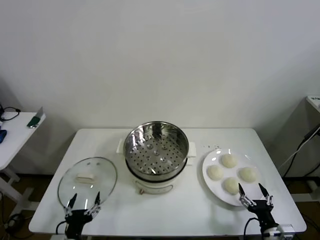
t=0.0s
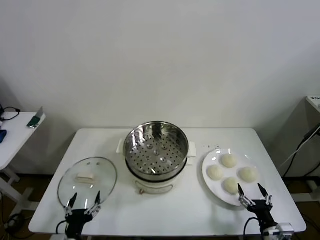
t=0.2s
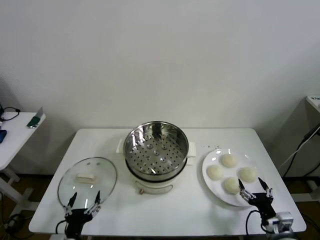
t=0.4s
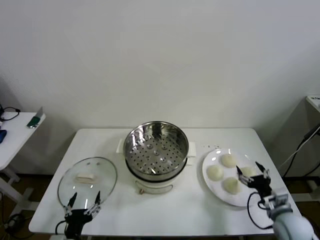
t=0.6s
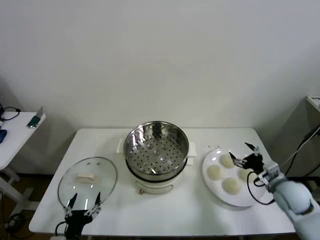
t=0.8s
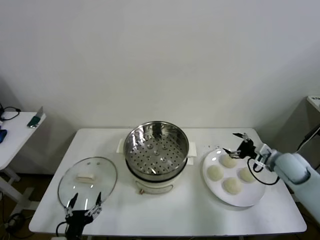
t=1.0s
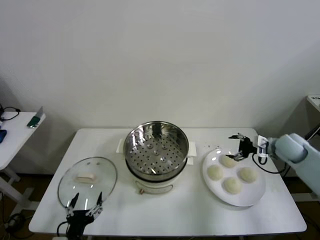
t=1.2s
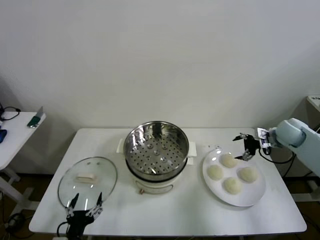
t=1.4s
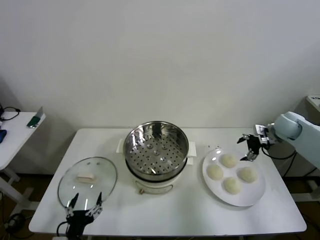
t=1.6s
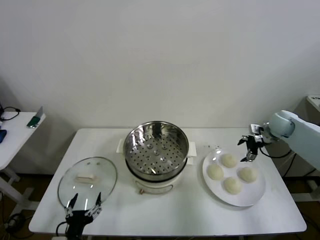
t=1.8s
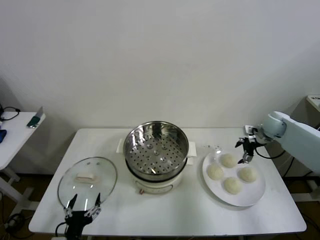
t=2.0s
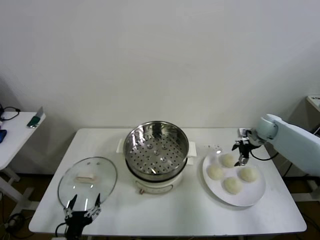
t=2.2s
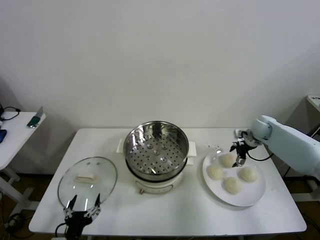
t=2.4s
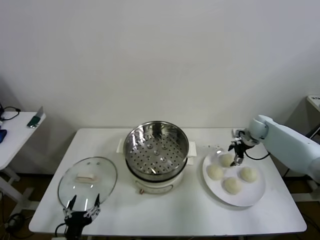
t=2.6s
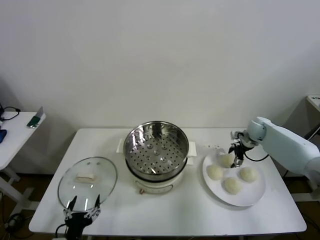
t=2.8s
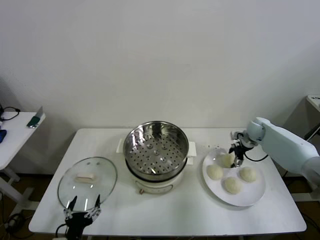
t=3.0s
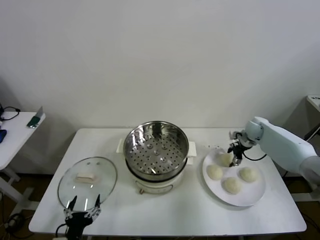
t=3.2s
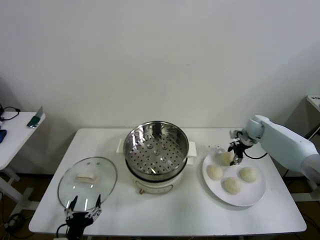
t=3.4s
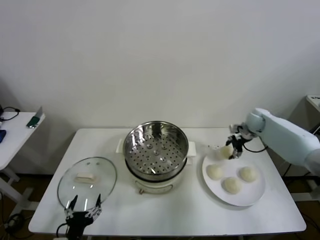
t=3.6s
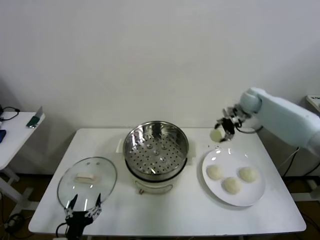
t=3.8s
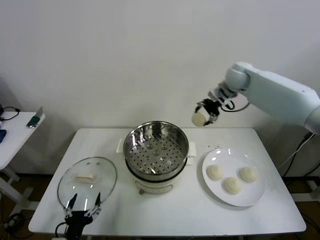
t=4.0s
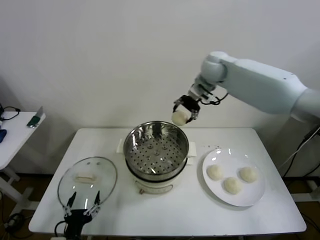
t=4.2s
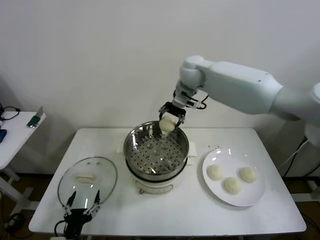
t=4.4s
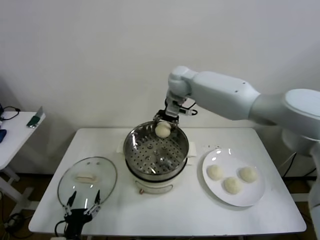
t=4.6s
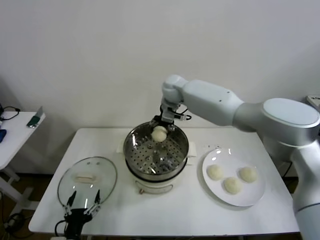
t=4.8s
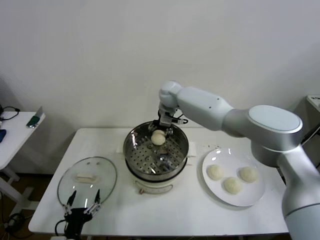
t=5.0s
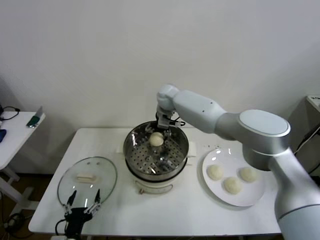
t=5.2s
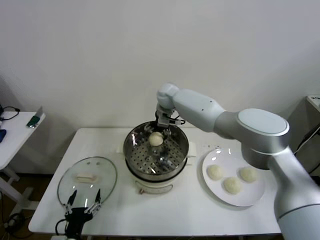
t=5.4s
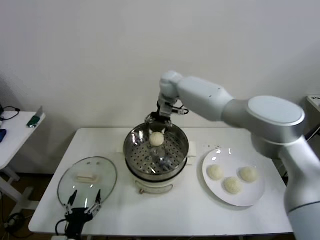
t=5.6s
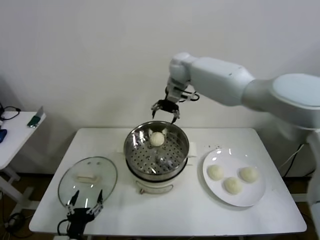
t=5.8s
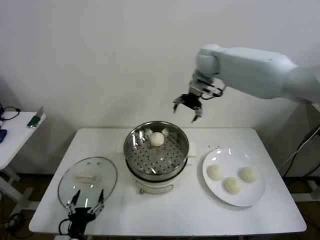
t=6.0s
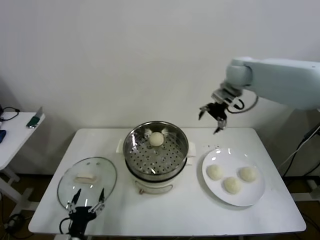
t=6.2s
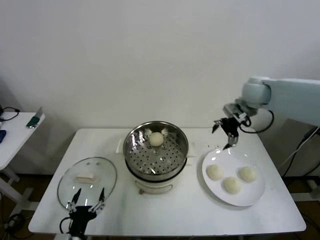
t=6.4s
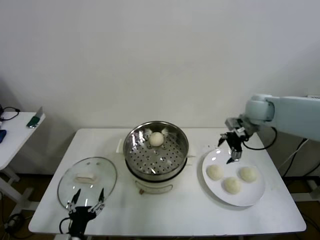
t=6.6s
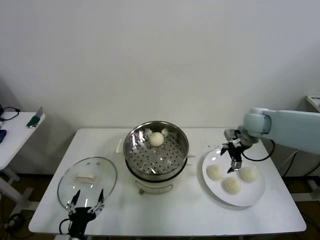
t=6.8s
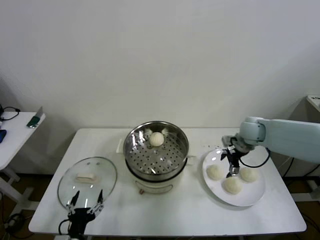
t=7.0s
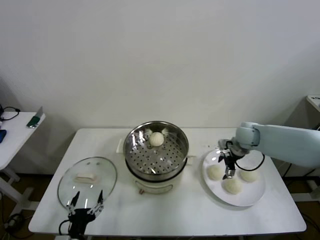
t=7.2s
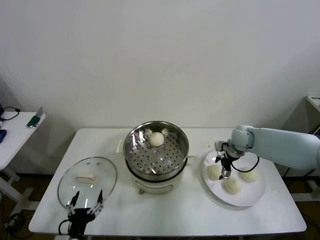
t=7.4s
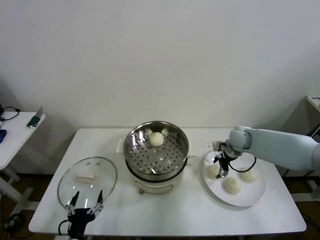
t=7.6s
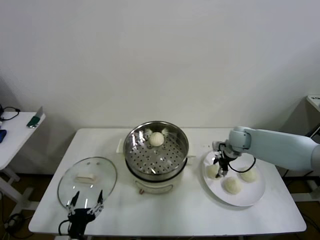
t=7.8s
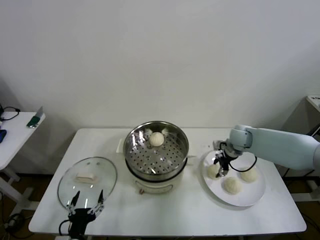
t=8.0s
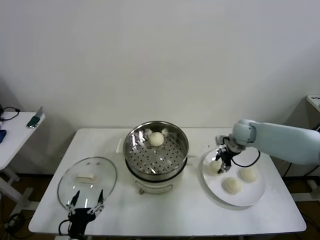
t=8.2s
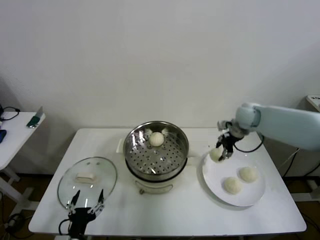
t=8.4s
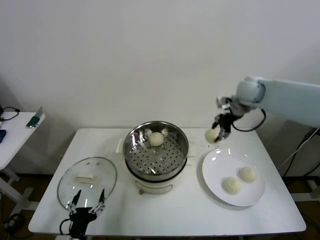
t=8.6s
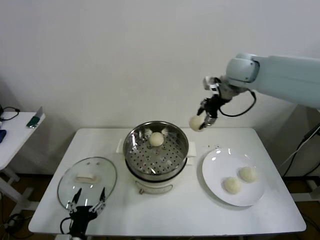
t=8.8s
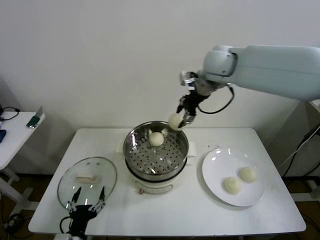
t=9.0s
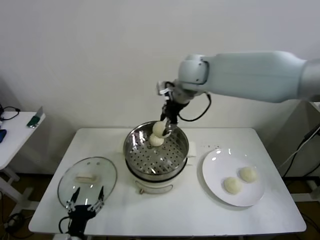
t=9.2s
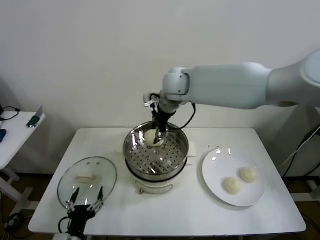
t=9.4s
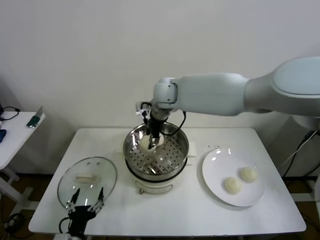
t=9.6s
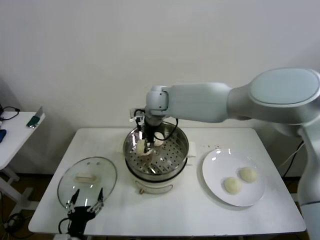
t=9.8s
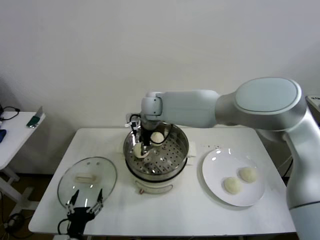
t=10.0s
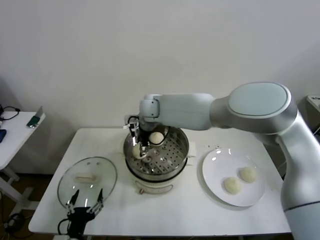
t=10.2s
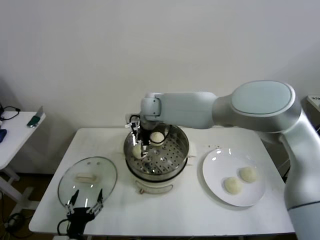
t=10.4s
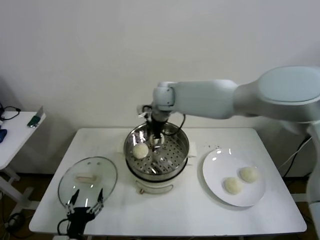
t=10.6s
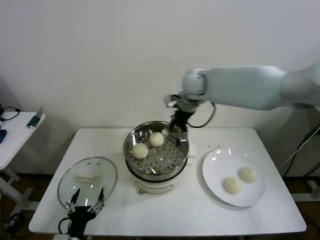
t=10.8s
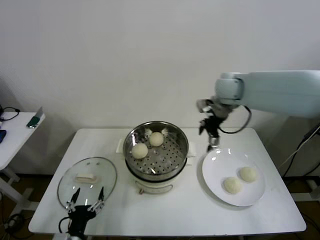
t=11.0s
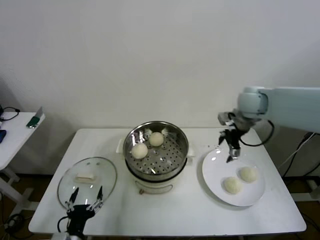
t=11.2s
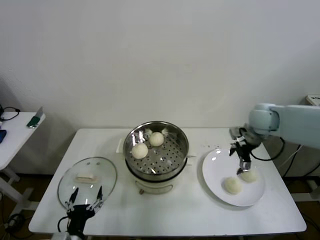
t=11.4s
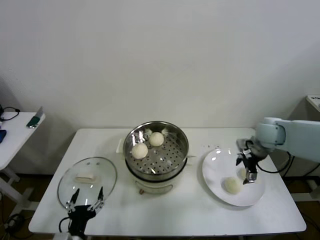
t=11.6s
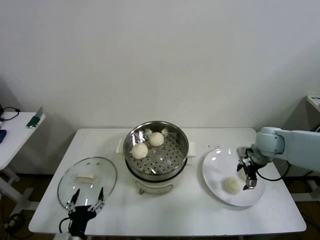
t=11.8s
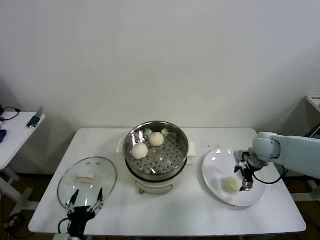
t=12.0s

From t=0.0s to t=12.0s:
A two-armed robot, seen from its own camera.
Step, from t=0.0s to t=3.2s: Grasp the baozi in the plate with right gripper.
Step, from t=3.4s to t=5.0s: Place the baozi on the steamer with right gripper.
Step, from t=5.4s to t=7.8s: Grasp the baozi in the plate with right gripper.
Step, from t=8.0s to t=10.0s: Place the baozi on the steamer with right gripper.
From t=1.6s to t=3.0s: The right gripper is displaced downward and forward by about 10 cm.
From t=3.0s to t=4.4s: The right gripper travels to the left and upward by approximately 40 cm.
From t=4.4s to t=6.0s: The right gripper heads to the right, covering some 15 cm, and opens its fingers.
From t=6.0s to t=7.6s: The right gripper heads downward, covering approximately 25 cm, and closes up.
From t=7.6s to t=9.0s: The right gripper shifts approximately 35 cm upward and to the left, and closes up.
From t=9.0s to t=10.4s: The right gripper shifts about 20 cm to the left and downward, and opens.
From t=10.4s to t=12.0s: The right gripper shifts approximately 40 cm to the right.

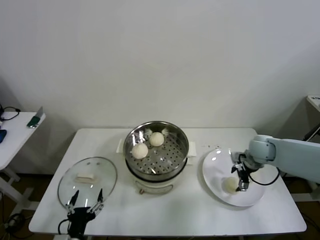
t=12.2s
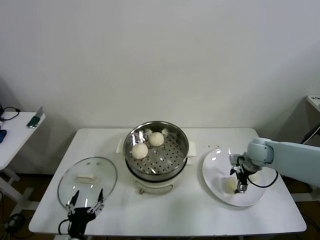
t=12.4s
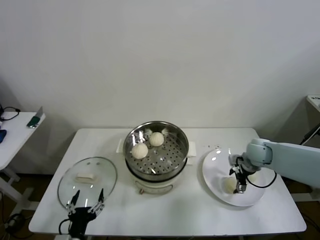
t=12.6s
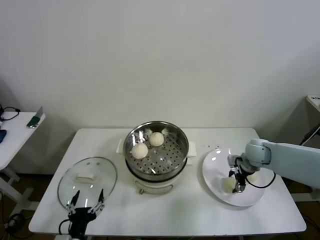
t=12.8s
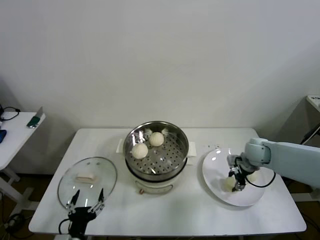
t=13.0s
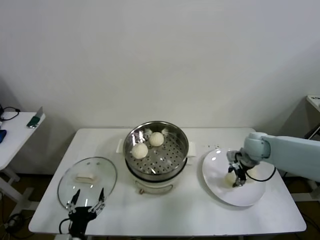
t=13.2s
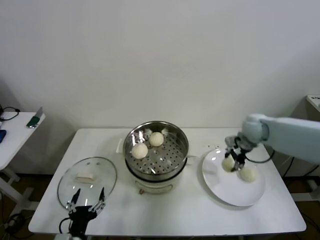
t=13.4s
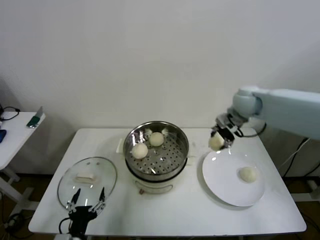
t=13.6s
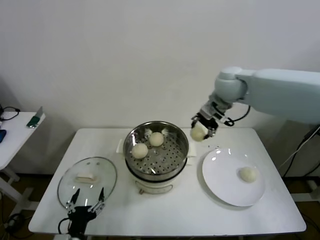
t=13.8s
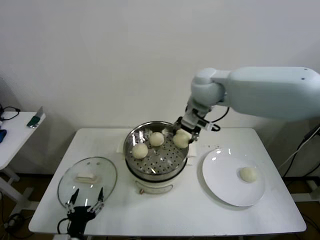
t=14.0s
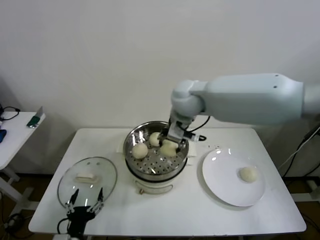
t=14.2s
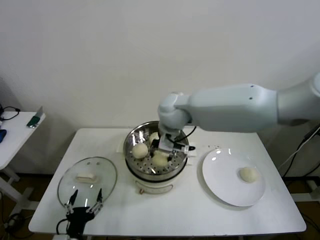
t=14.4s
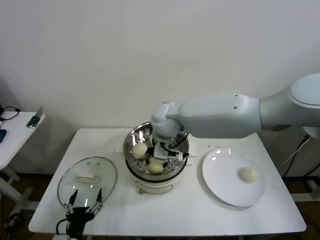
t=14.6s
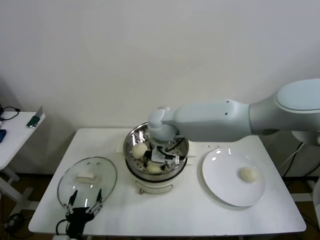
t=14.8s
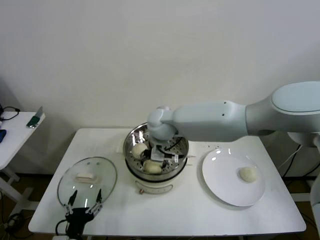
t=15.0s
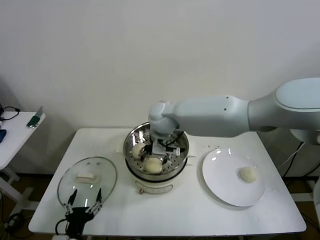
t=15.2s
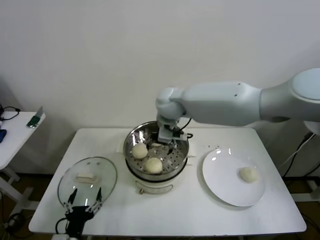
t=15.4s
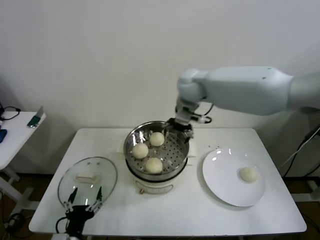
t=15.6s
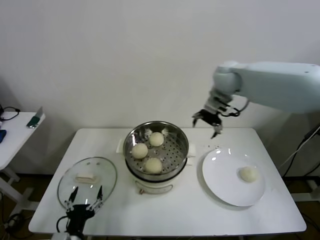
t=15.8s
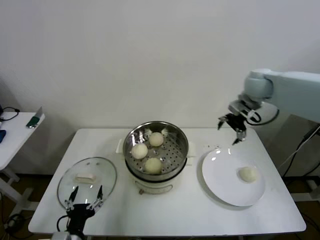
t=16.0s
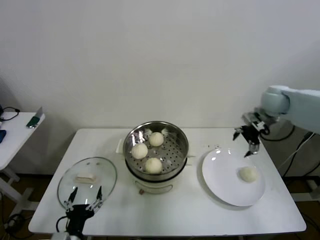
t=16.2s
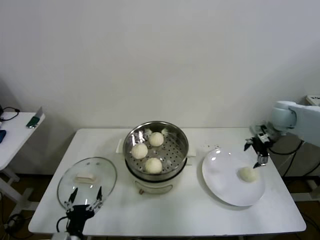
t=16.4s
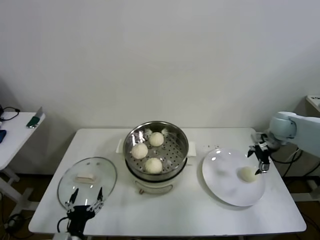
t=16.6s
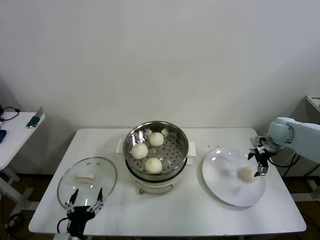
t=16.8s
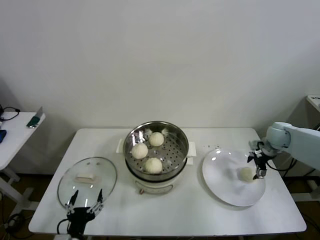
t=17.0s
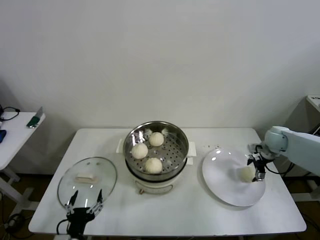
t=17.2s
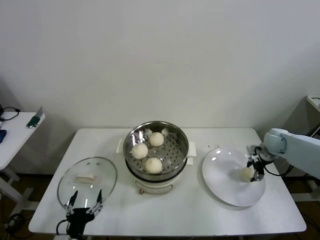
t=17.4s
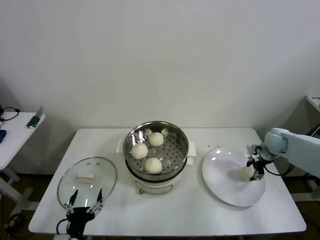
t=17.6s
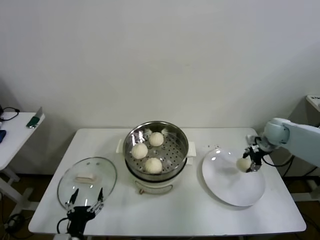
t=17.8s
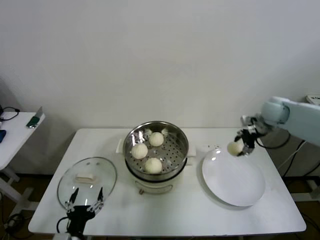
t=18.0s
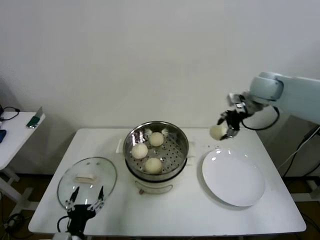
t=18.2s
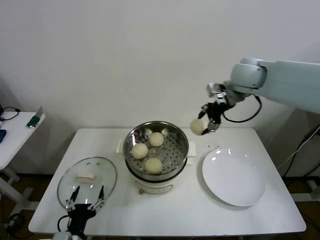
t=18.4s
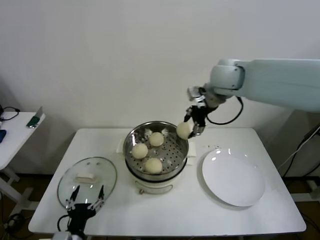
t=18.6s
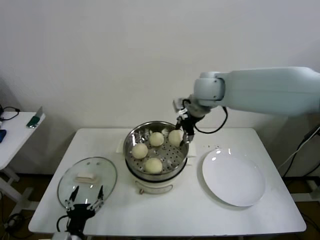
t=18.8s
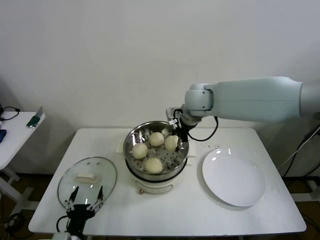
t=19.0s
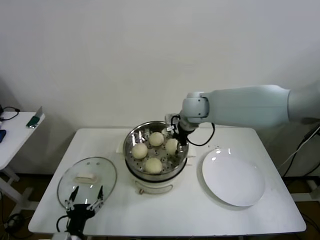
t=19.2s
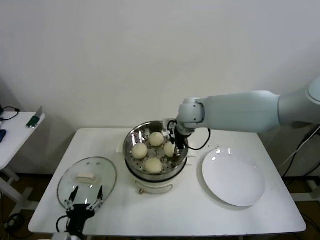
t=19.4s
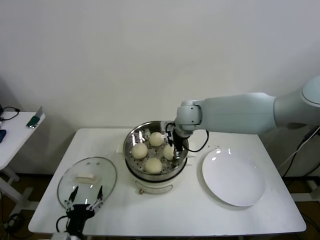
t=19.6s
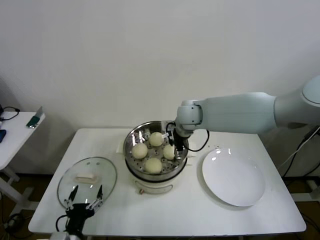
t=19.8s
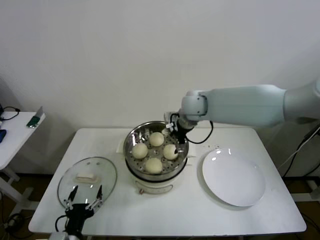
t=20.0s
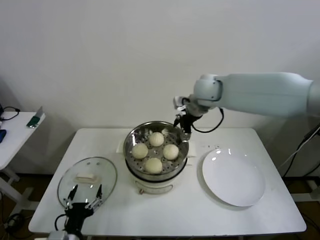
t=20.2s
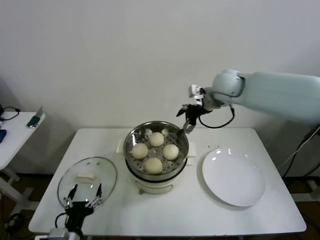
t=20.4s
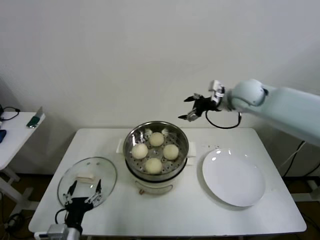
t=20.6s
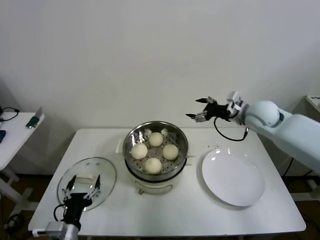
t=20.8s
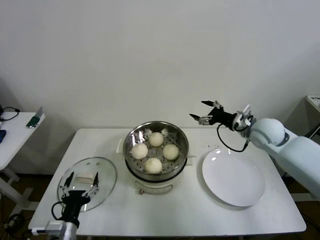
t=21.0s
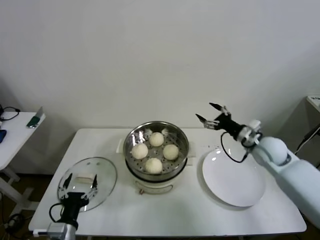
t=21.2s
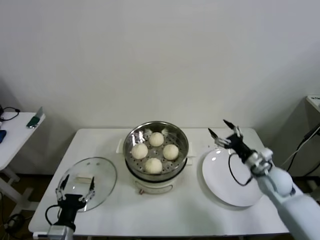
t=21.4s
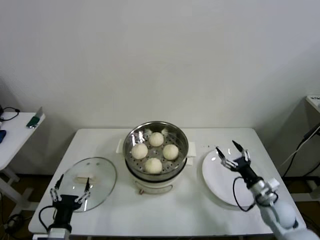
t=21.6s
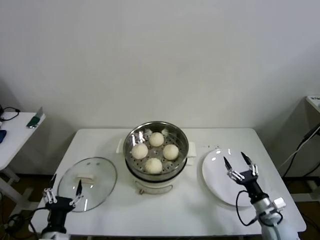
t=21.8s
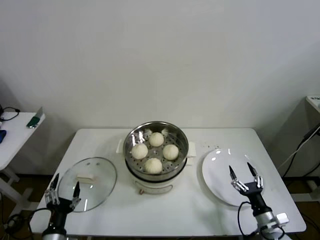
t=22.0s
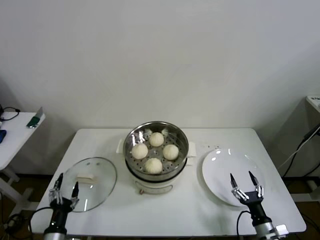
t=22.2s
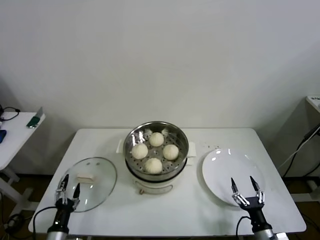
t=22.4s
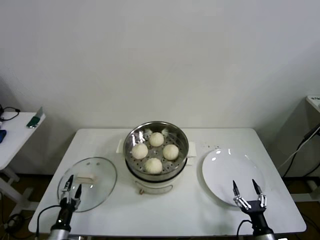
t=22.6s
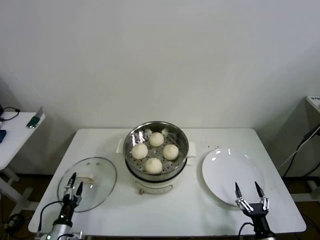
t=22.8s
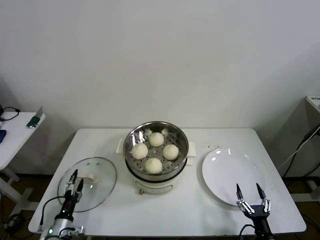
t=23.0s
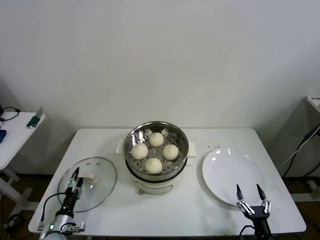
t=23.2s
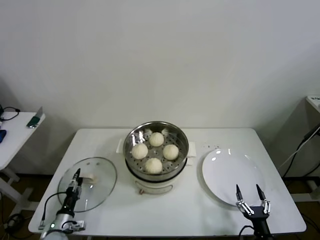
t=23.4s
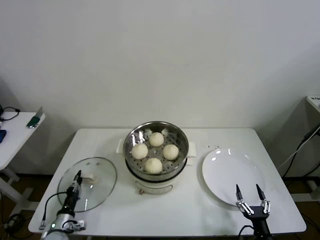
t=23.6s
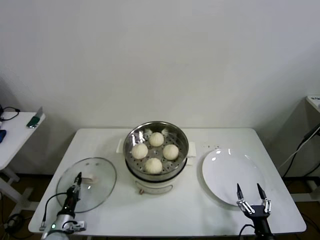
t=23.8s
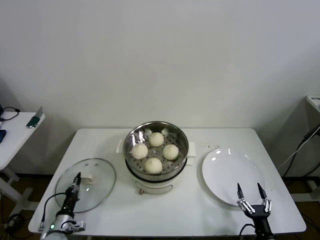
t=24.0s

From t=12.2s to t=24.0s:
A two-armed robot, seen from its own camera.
Step, from t=13.0s to t=14.8s: Place the baozi on the steamer with right gripper.
Step, from t=15.0s to t=17.4s: Grasp the baozi in the plate with right gripper.
Step, from t=17.6s to t=19.6s: Place the baozi on the steamer with right gripper.
Step, from t=19.8s to t=23.6s: Grasp the pot lid with left gripper.
From t=12.2s to t=13.6s: The right gripper is displaced upward and to the left by about 20 cm, and closes its fingers.
From t=13.6s to t=15.2s: The right gripper travels to the left by roughly 25 cm, and opens its fingers.
From t=15.2s to t=16.6s: The right gripper goes approximately 40 cm to the right.
From t=16.6s to t=18.2s: The right gripper travels upward and to the left by roughly 20 cm, and closes up.
From t=18.2s to t=19.6s: The right gripper goes about 25 cm to the left and downward, and opens.
From t=19.6s to t=21.0s: The right gripper travels to the right by roughly 25 cm, and opens its fingers.
From t=21.0s to t=22.6s: The right gripper heads backward and downward, covering roughly 40 cm. The left gripper is displaced downward and to the left by some 15 cm.
From t=22.6s to t=24.0s: The left gripper heads forward, covering roughly 5 cm, and closes.
